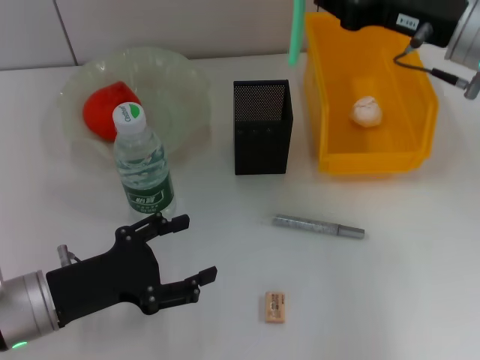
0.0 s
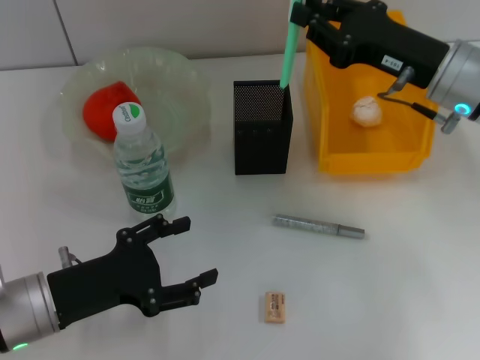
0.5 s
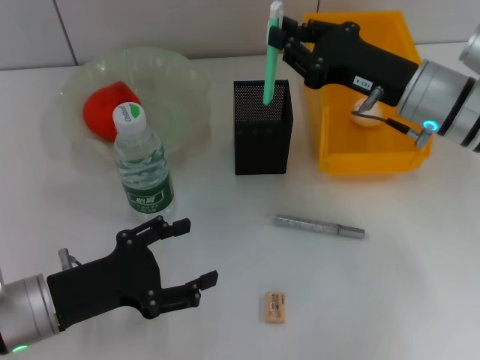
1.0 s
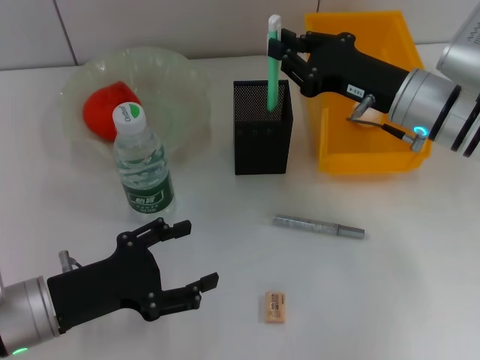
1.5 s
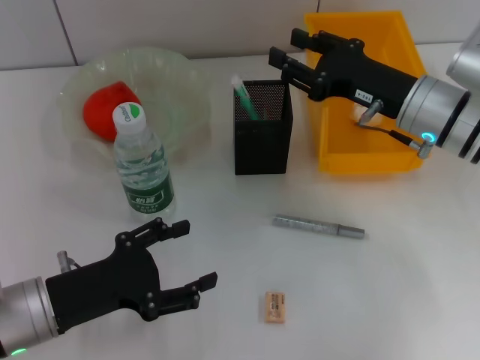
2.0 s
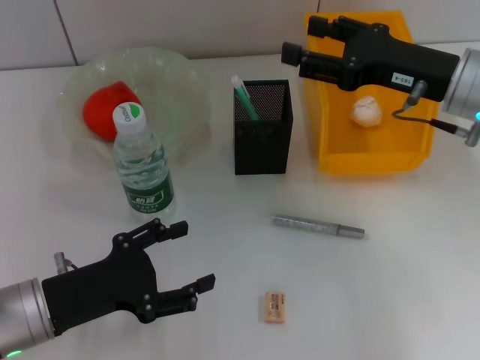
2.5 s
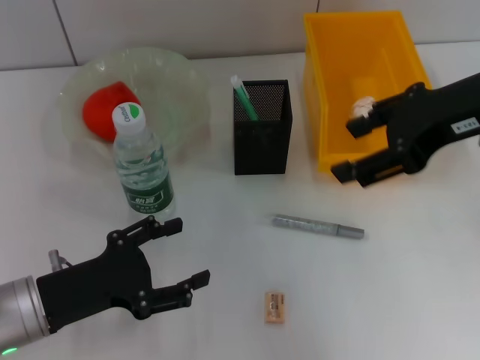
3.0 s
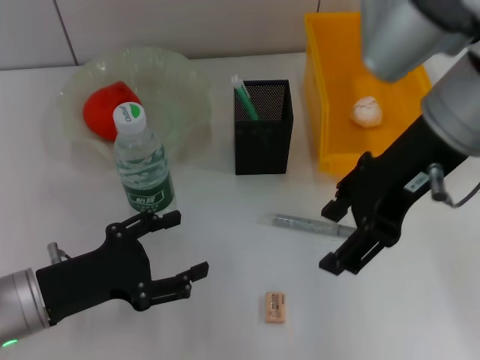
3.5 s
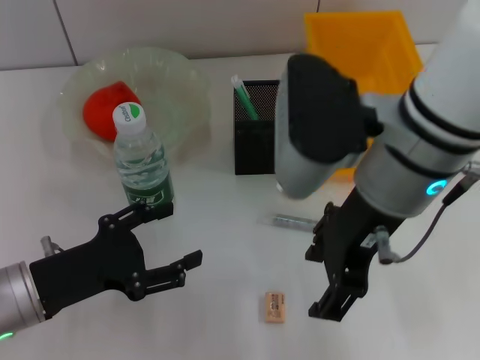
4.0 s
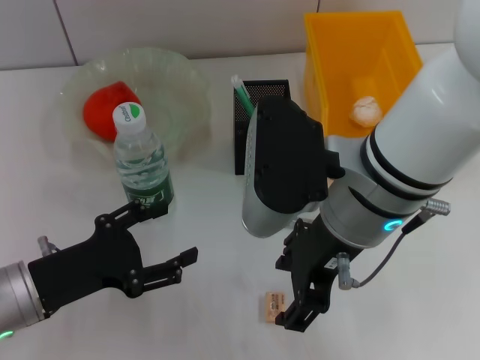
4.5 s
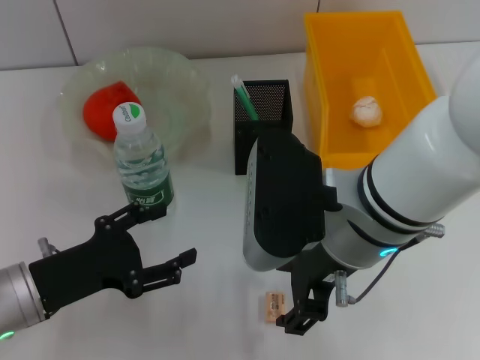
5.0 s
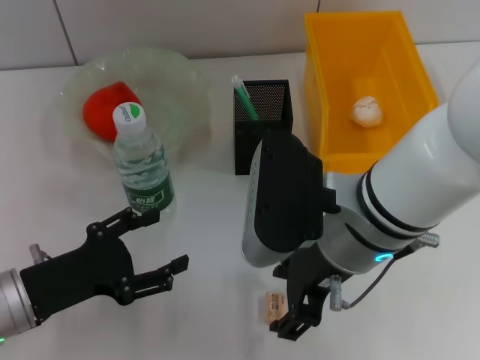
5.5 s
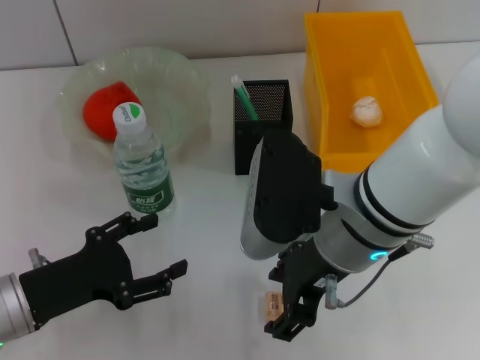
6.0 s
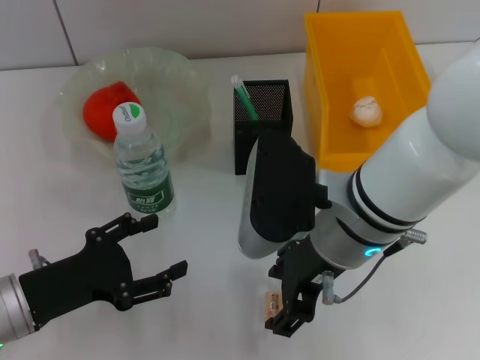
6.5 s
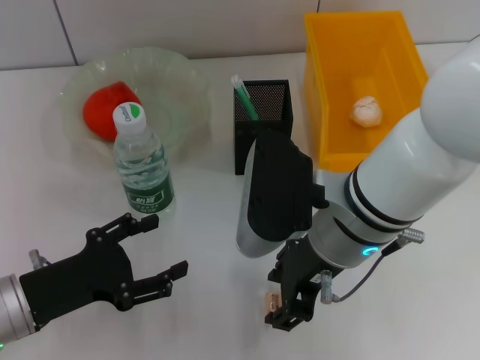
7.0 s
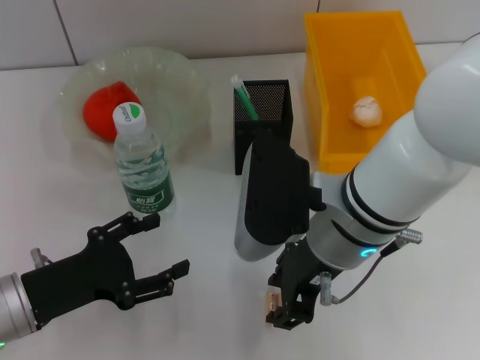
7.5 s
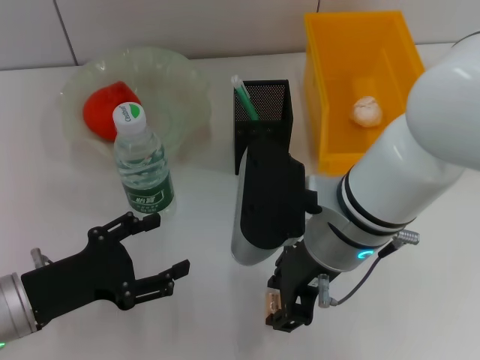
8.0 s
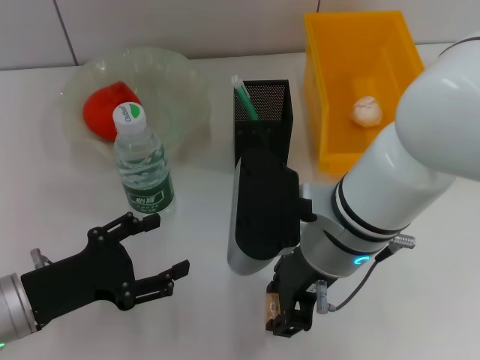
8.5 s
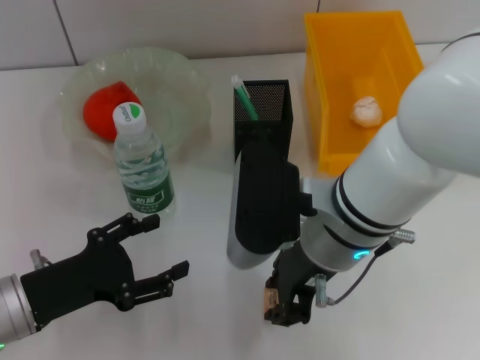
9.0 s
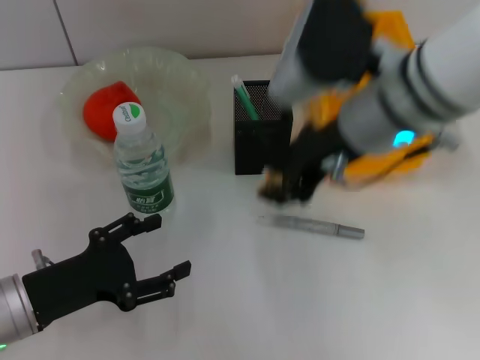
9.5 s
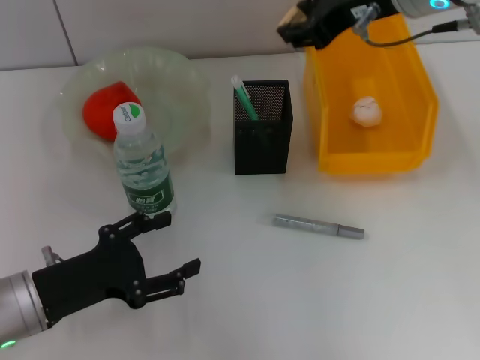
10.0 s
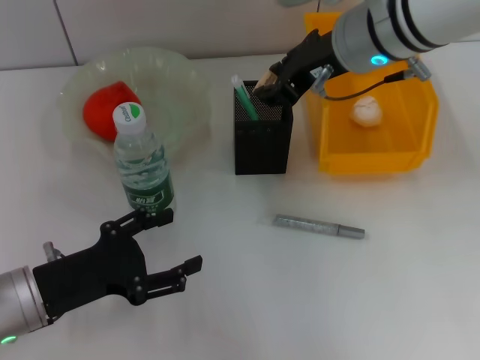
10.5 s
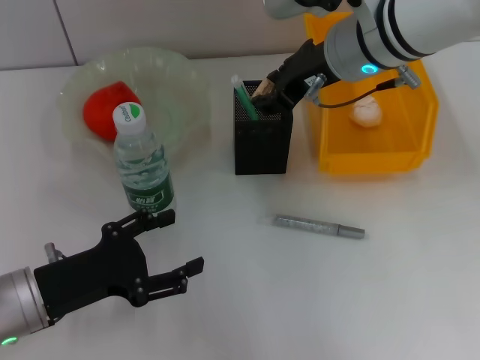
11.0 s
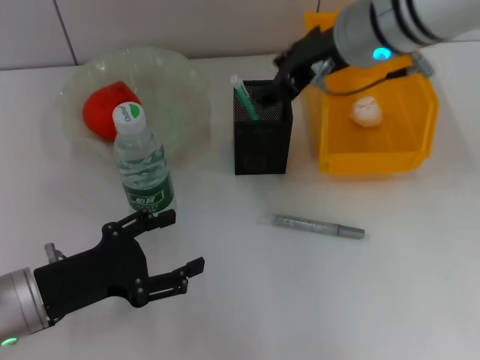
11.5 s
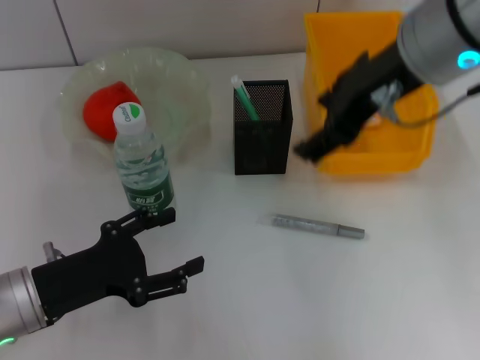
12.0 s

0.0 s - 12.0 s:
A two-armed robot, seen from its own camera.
Step, 0.0 s - 2.0 s: Place the blue utility knife into the pen holder with the right hand.
Step, 2.5 s - 8.5 s: Grab the eraser with the right hand.
Step, 9.0 s - 11.0 s: Put the eraser into the pen holder with the right hand.
0.0 s - 2.0 s: The right gripper moves downward, approximately 10 cm.
2.0 s - 4.0 s: The right gripper is displaced upward, to the left and backward by some 15 cm, and opens up.
4.0 s - 6.0 s: The right gripper shifts roughly 5 cm downward.
6.0 s - 8.0 s: The right gripper closes.
8.0 s - 10.0 s: The right gripper shifts about 20 cm upward, forward and to the right.
10.0 s - 12.0 s: The right gripper shifts roughly 5 cm backward, and opens.

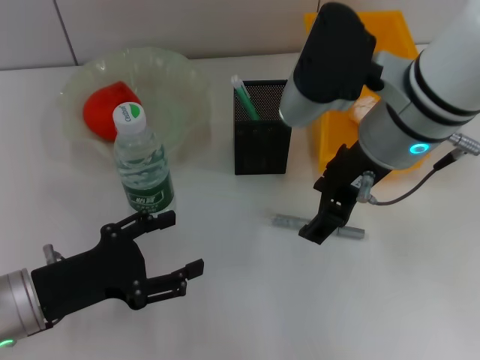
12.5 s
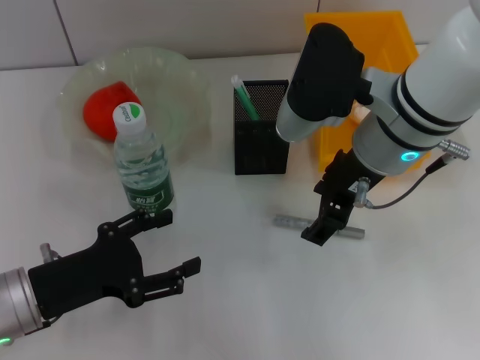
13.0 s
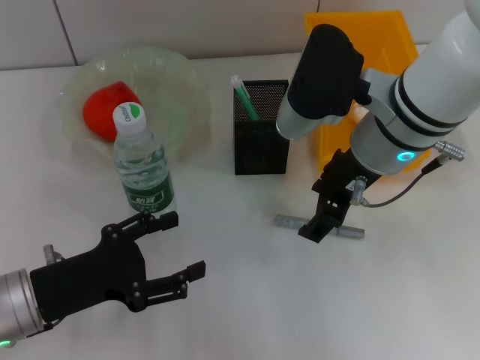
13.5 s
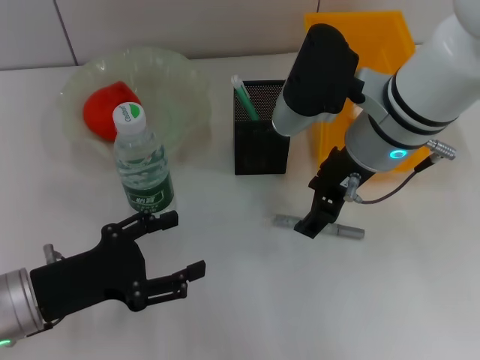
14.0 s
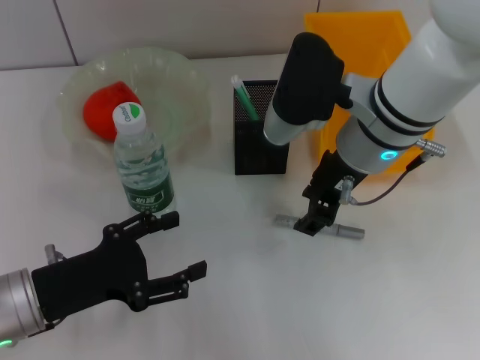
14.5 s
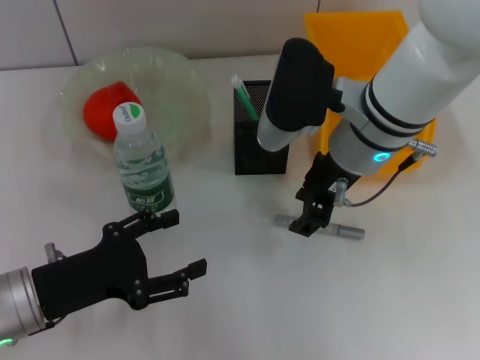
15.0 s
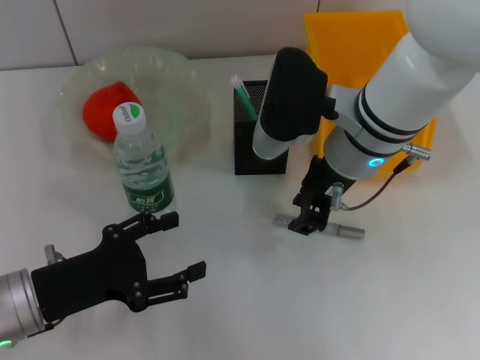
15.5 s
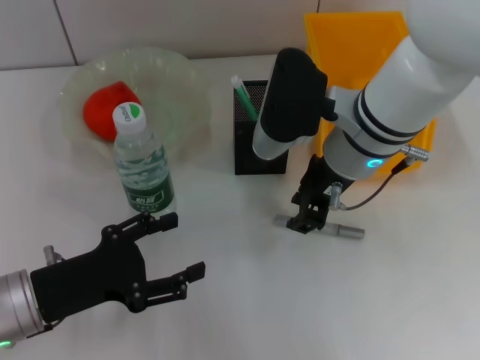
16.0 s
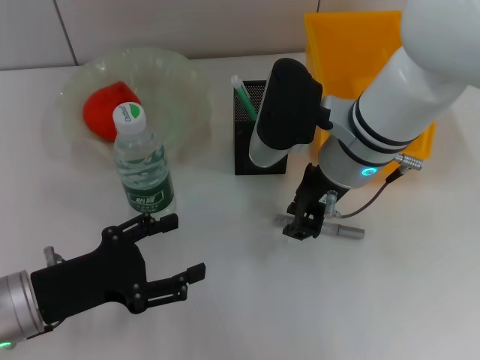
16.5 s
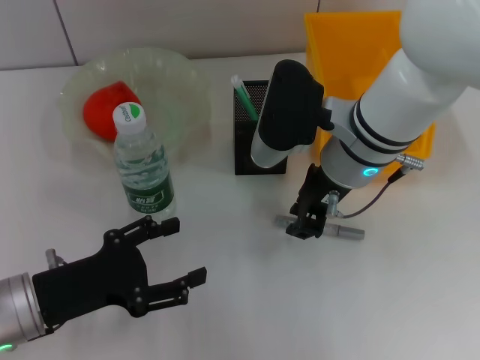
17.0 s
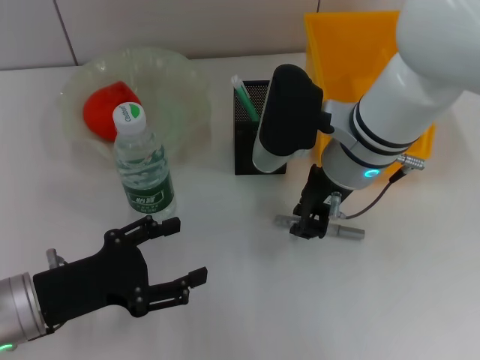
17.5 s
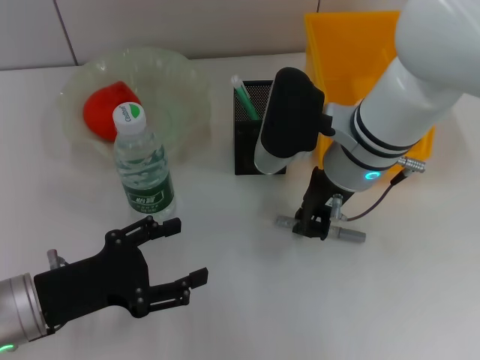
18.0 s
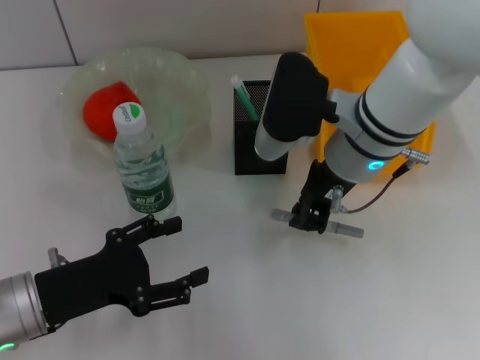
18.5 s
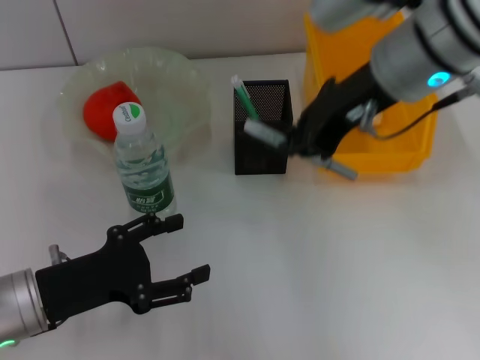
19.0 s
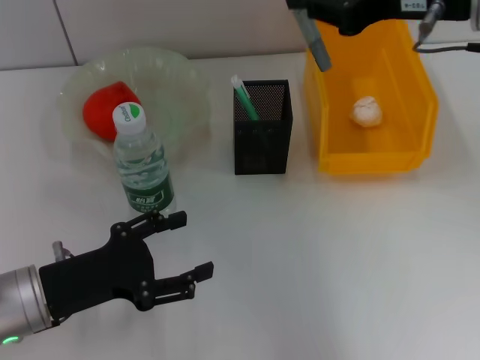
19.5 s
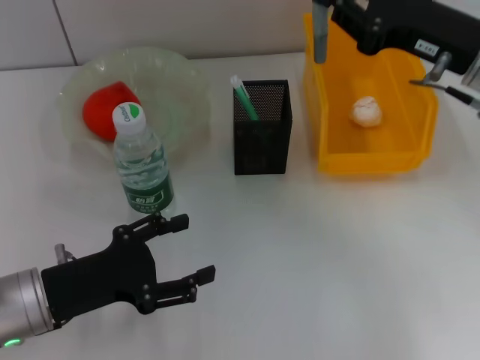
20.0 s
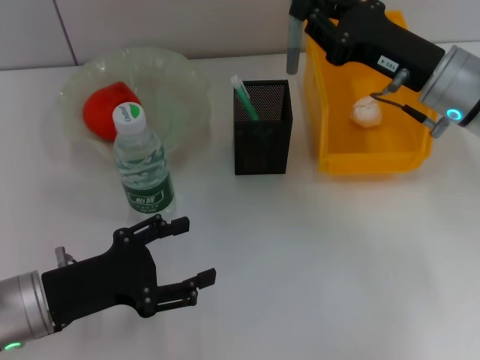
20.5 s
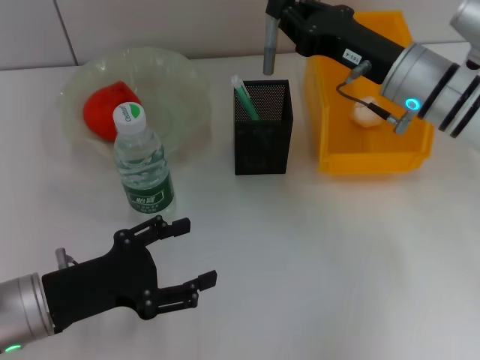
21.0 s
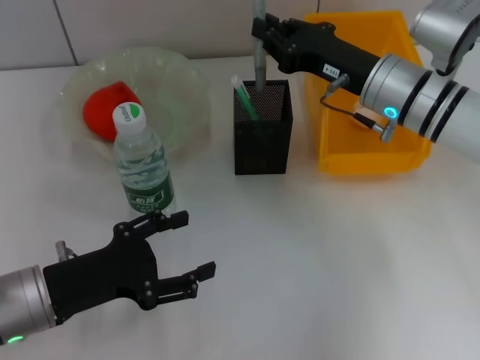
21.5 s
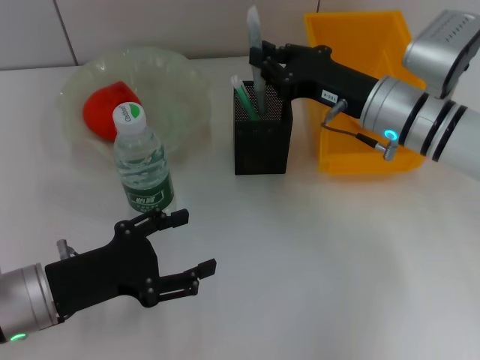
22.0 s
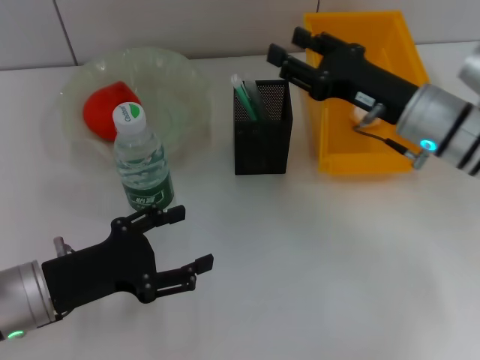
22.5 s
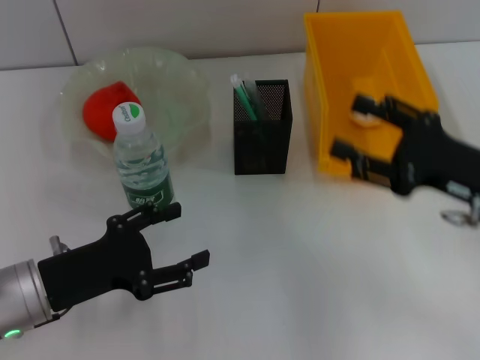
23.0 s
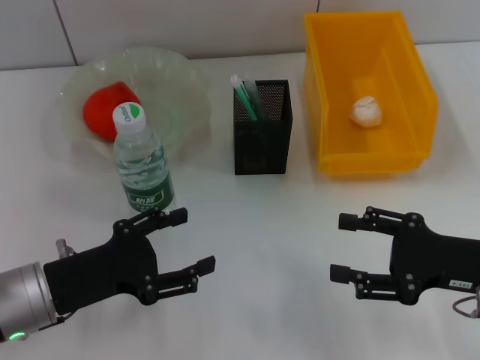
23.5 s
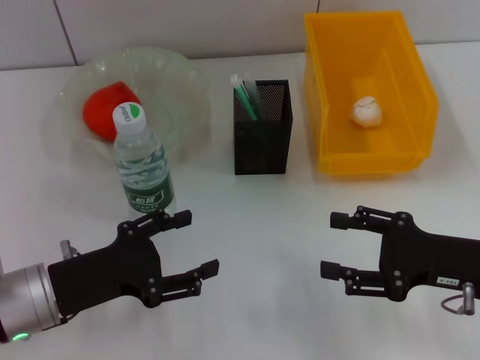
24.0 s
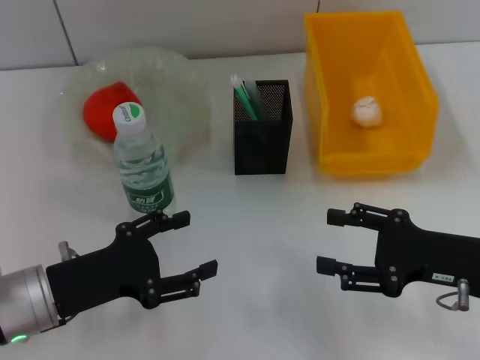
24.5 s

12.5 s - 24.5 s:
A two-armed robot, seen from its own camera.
Step, 12.5 s - 17.5 s: Grab the gray glue with the right hand.
Step, 18.5 s - 22.0 s: Place the gray glue into the pen holder with the right hand.
12.5 s - 14.5 s: There are only small adjustments of the grippers.
14.5 s - 16.5 s: The right gripper closes up.
16.5 s - 18.5 s: Both grippers stay put.
18.5 s - 20.5 s: The right gripper travels to the right by approximately 10 cm, and goes upward and returns, roughly 10 cm each way.
20.5 s - 22.5 s: The right gripper opens.
22.5 s - 24.5 s: The right gripper is displaced backward and to the right by about 15 cm, and opens up.

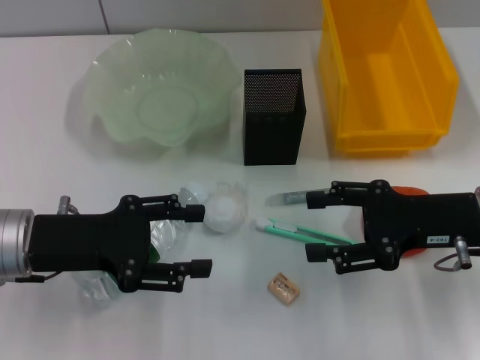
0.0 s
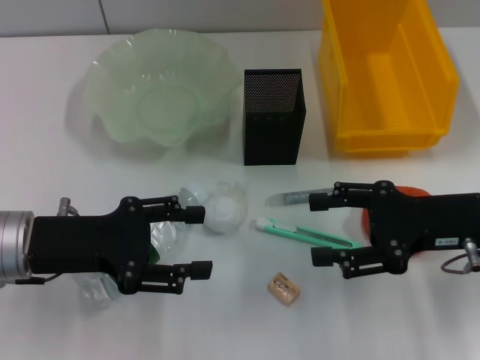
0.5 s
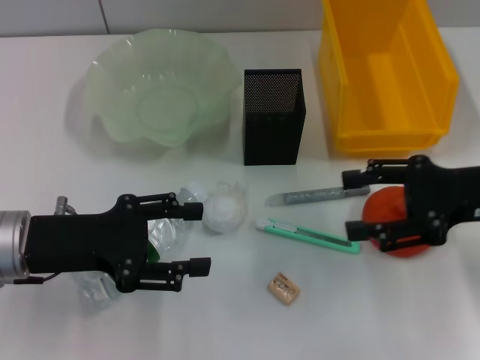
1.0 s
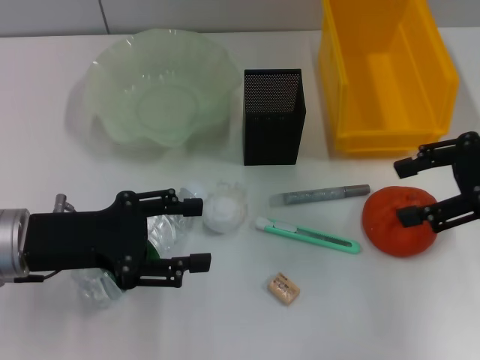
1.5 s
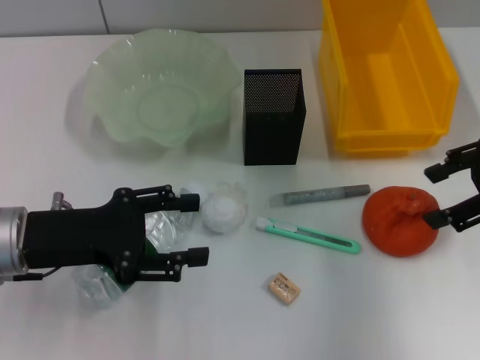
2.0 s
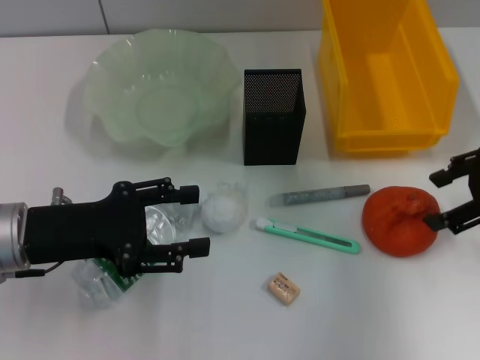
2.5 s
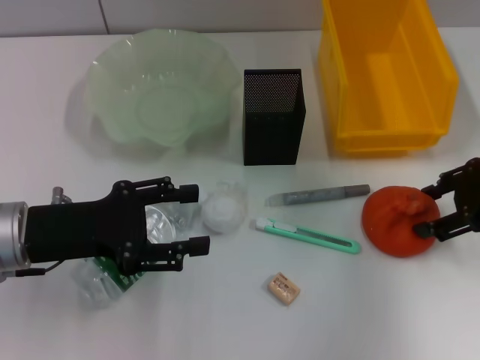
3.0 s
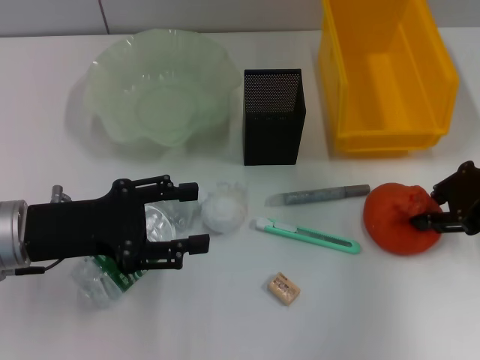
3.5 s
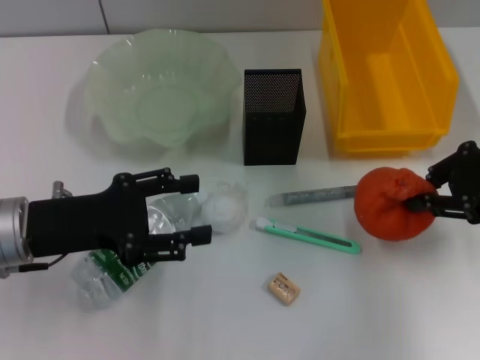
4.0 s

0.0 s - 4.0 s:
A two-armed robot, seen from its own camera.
Step, 0.0 s - 3.5 s: Grab the orange with the right hand.
0.0 s - 2.0 s: The right gripper heads upward and to the right, covering roughly 10 cm.
2.0 s - 4.0 s: The right gripper closes.
